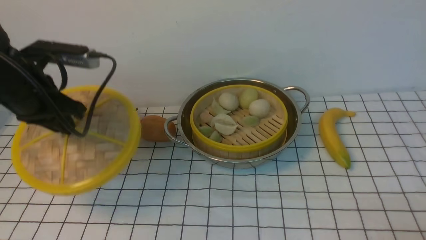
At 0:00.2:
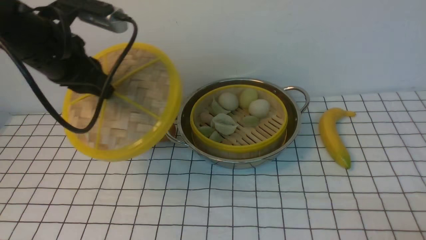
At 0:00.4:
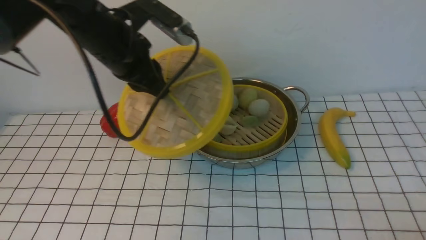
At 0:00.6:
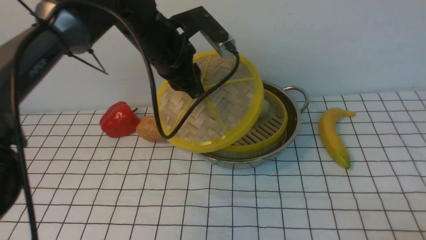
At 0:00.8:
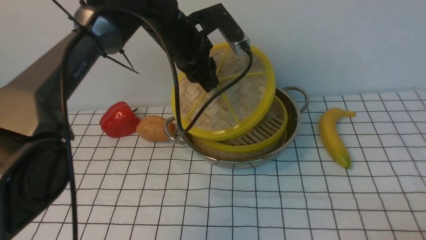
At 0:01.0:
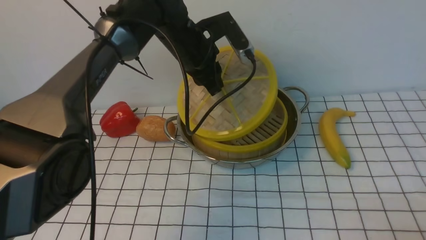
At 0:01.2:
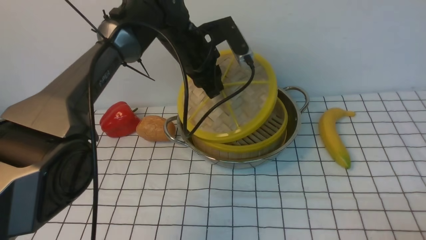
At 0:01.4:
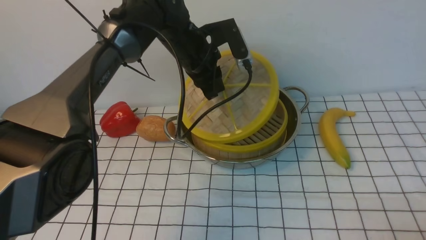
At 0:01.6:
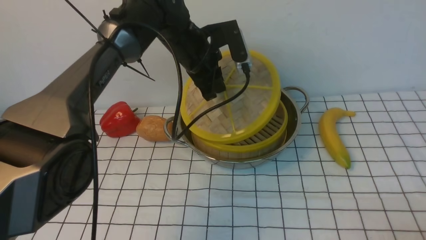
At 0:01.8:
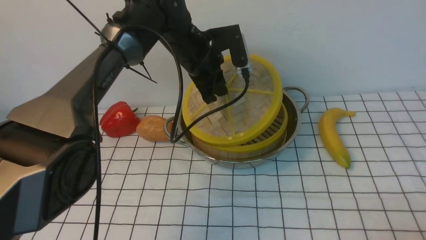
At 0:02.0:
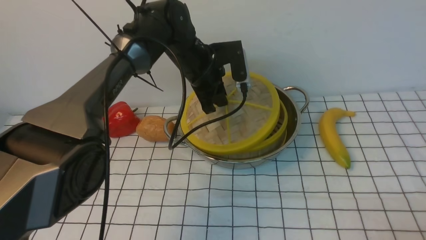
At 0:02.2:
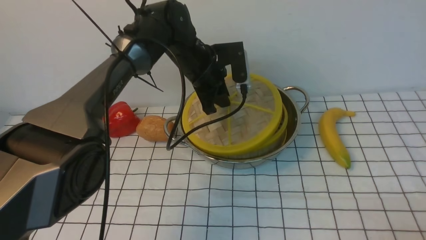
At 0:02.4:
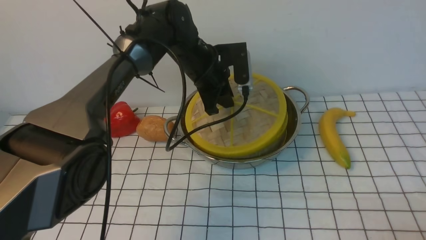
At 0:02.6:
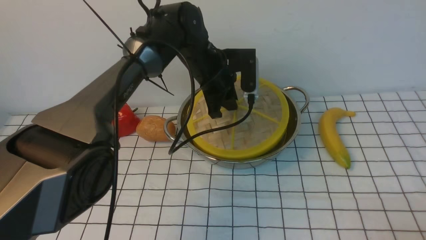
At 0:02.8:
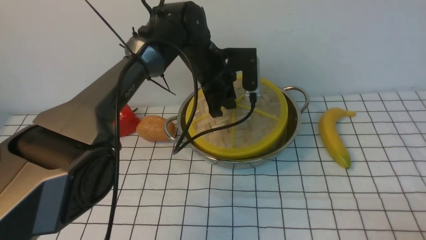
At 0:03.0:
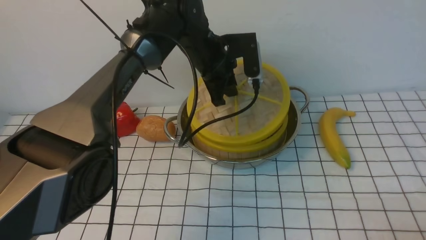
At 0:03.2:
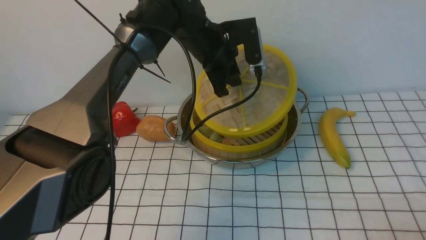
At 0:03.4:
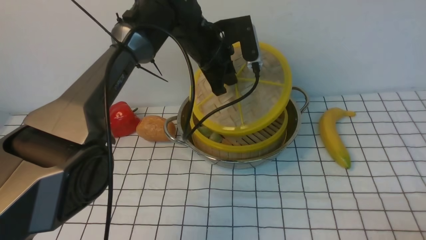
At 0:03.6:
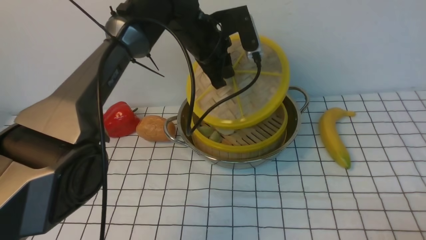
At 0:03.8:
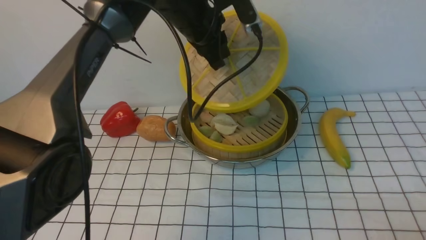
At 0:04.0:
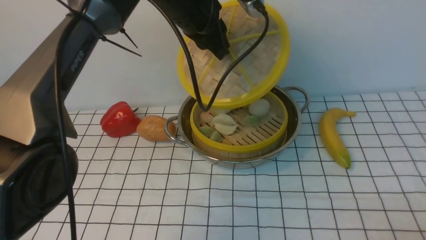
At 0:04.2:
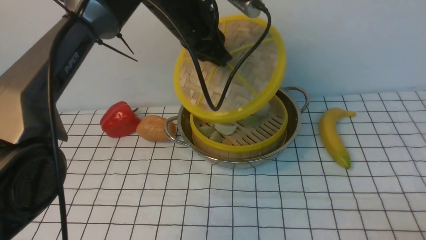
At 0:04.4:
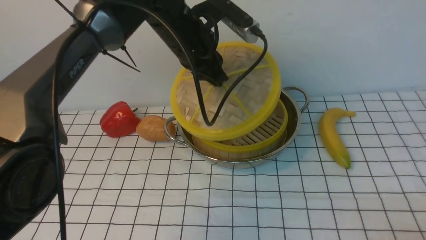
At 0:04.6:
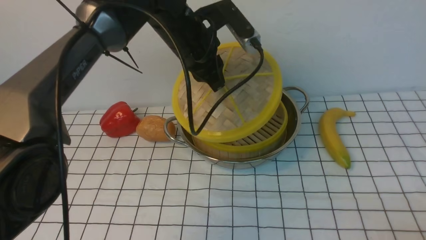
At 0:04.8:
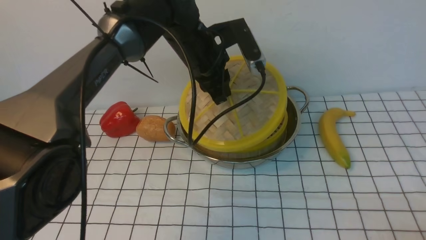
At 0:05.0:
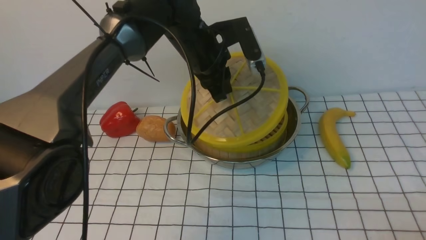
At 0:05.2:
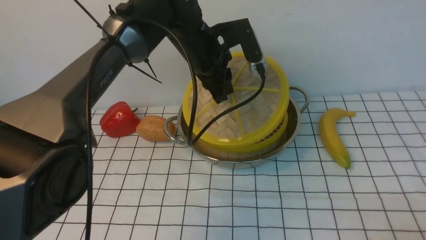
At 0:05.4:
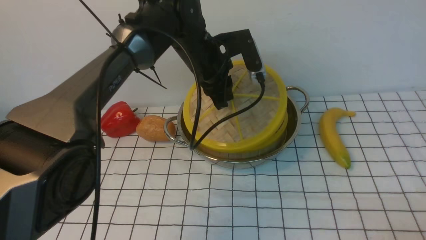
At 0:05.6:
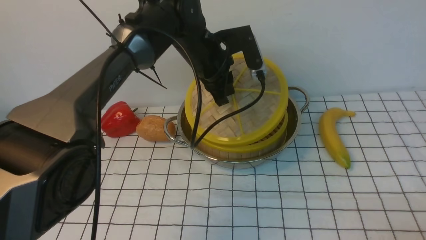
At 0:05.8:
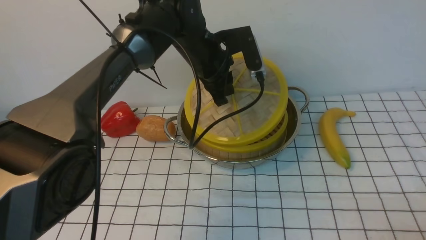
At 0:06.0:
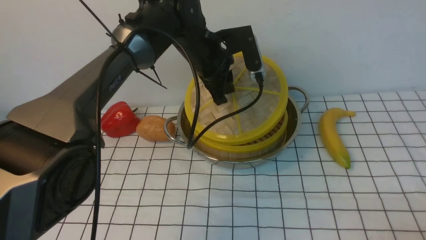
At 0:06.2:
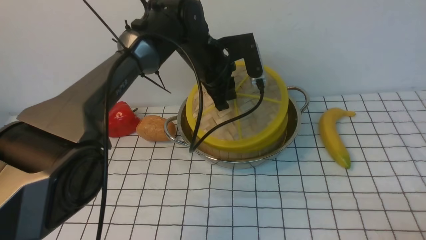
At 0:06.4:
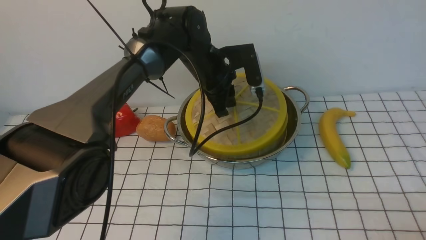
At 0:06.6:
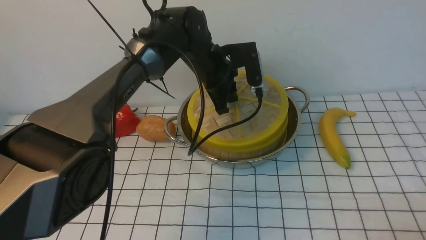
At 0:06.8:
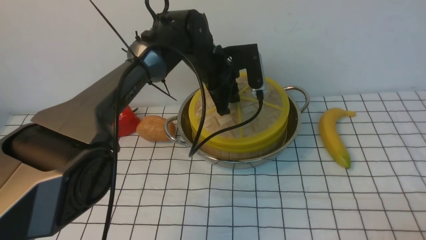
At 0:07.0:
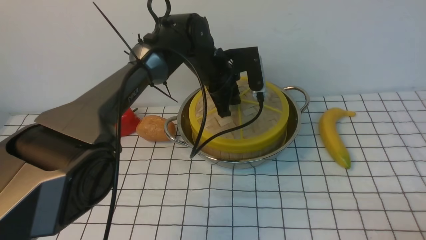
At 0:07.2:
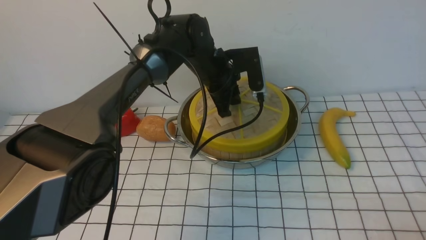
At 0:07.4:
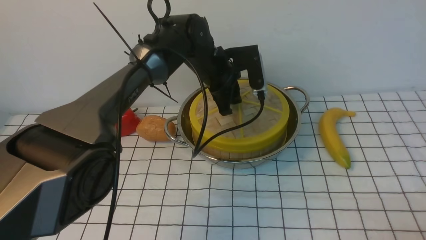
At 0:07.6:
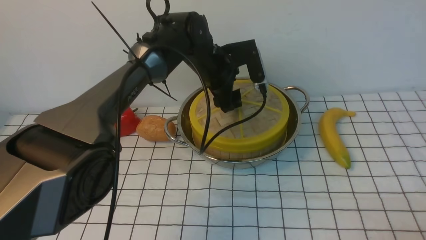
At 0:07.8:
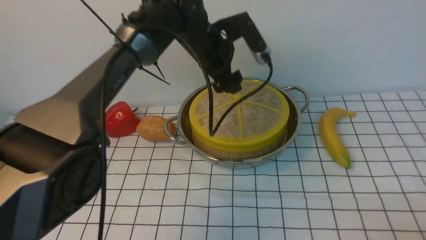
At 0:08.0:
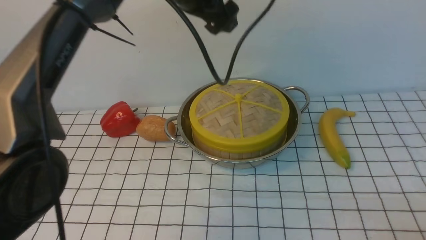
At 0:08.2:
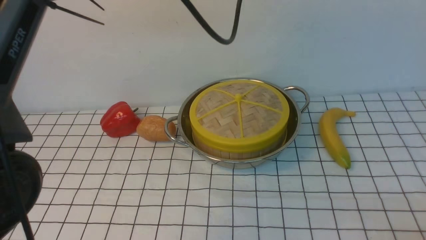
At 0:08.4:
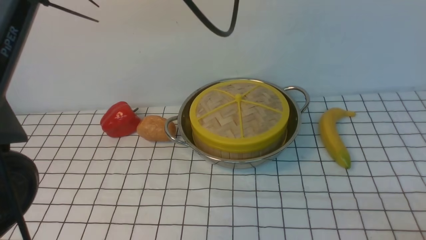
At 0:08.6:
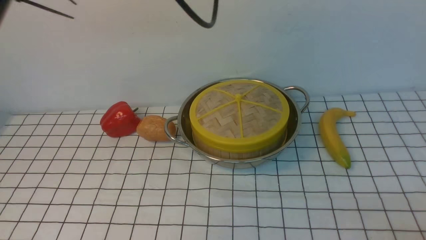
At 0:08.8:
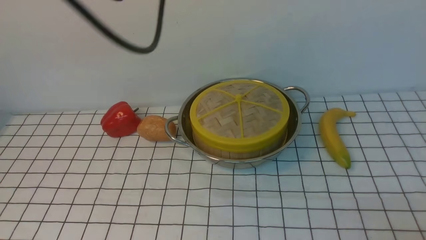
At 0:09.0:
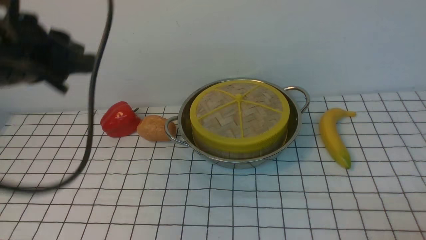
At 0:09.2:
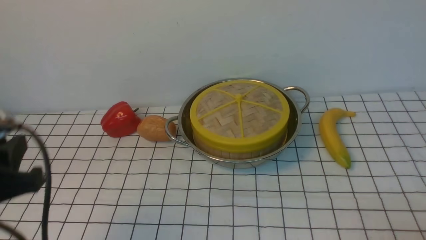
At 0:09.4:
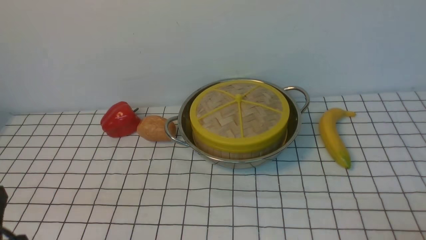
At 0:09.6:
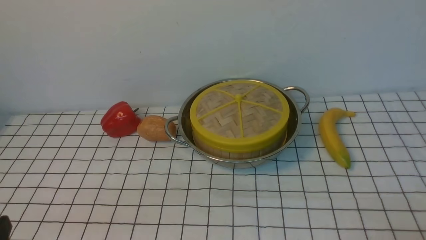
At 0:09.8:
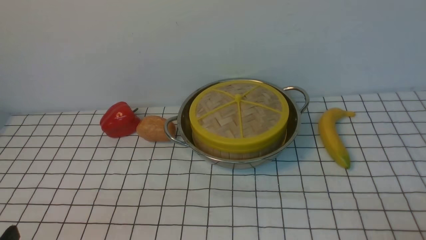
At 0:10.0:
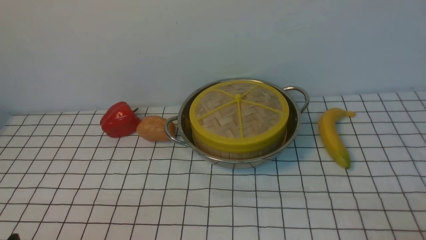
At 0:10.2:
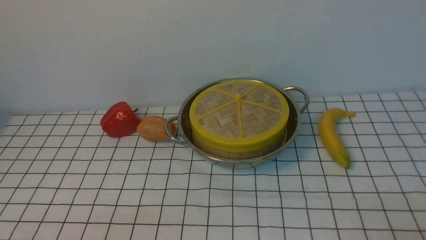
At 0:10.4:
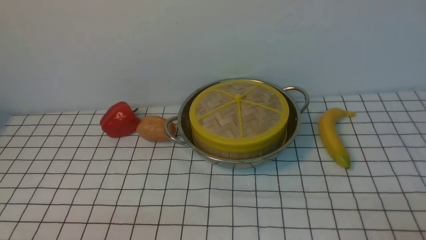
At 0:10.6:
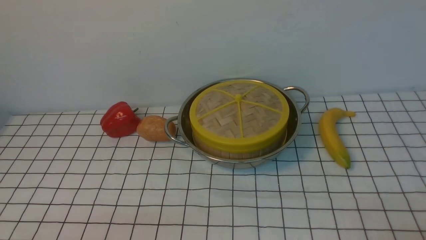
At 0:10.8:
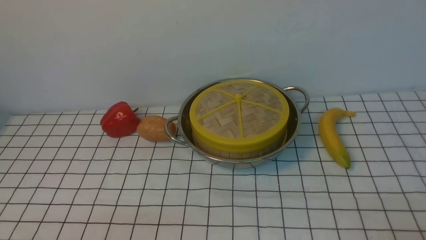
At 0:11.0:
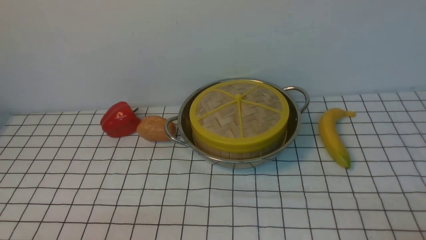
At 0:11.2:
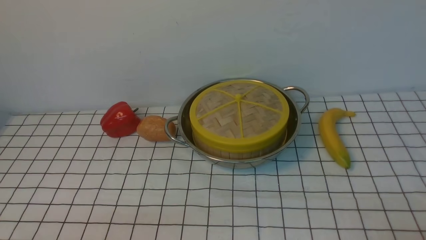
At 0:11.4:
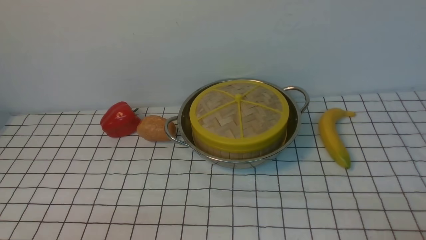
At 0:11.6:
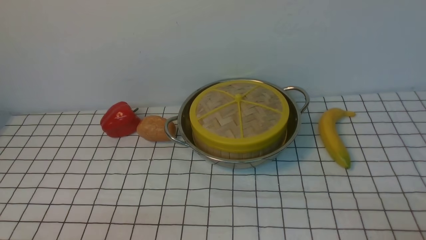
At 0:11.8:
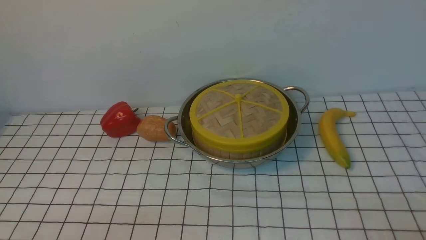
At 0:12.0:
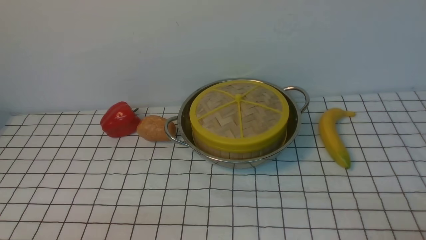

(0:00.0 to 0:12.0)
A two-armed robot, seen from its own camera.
Task of the whole recording: place the steamer in the pot on the white tablecloth, and put the lid on the steamer.
Step, 0:00.0 - 0:07.6: use the left arm to place the steamer lid on the steamer.
0:00.0 - 0:01.6: The left gripper moves to the right and forward, approximately 25 cm.
0:03.0 - 0:04.4: The left gripper travels upward by about 5 cm.
0:04.4 - 0:06.0: The left gripper shifts some 5 cm downward.
0:06.0 - 0:07.6: The left gripper opens its fingers.
0:07.6 - 0:09.0: The left gripper shifts about 35 cm backward, to the left and upward, and closes its fingers.
0:09.0 - 0:10.4: The left gripper moves downward and backward, some 25 cm.
0:10.4 - 0:12.0: Neither gripper changes place.
